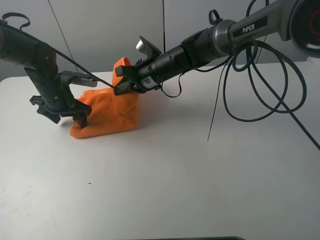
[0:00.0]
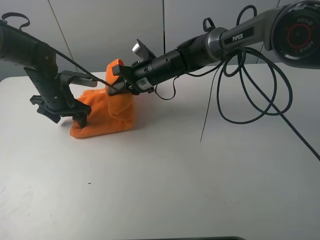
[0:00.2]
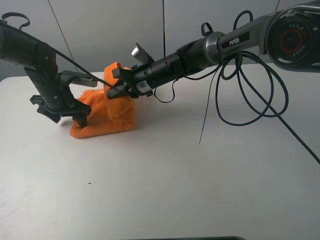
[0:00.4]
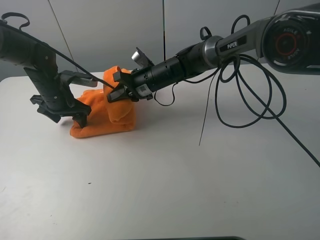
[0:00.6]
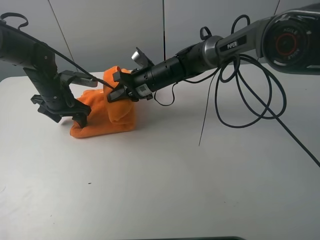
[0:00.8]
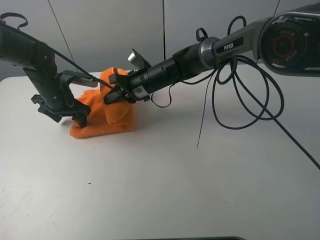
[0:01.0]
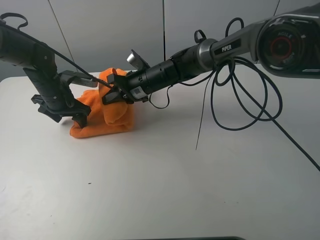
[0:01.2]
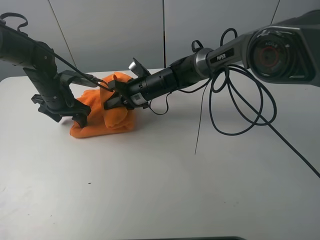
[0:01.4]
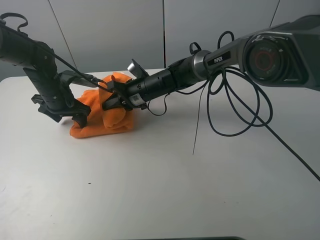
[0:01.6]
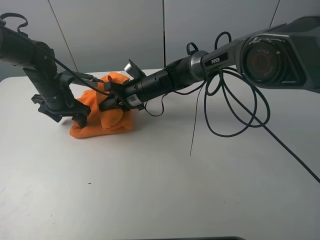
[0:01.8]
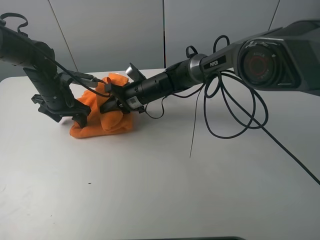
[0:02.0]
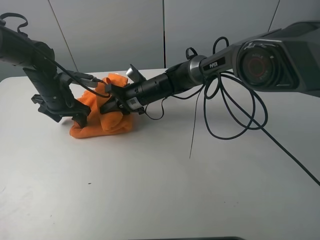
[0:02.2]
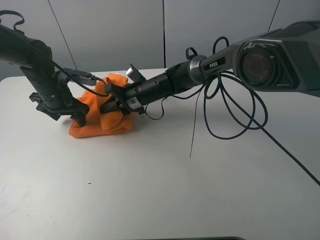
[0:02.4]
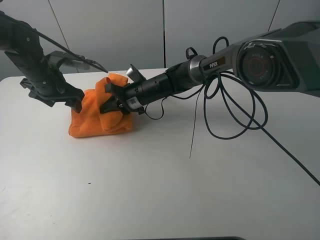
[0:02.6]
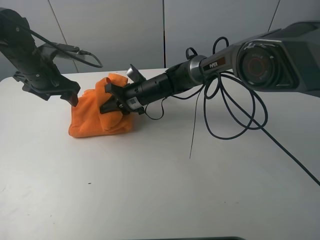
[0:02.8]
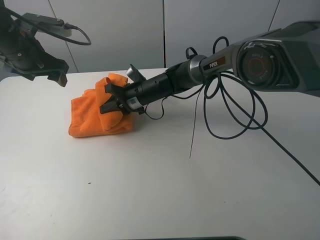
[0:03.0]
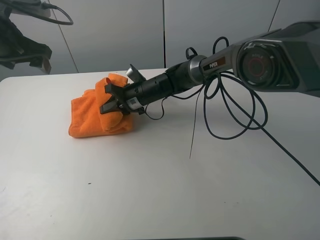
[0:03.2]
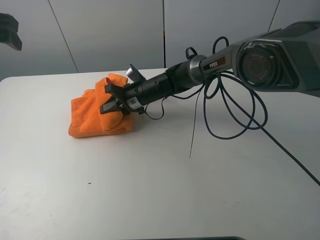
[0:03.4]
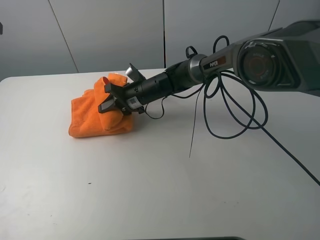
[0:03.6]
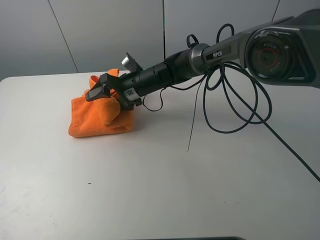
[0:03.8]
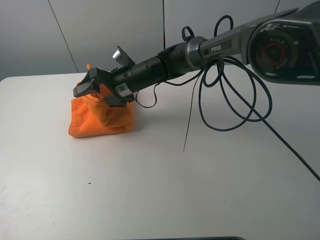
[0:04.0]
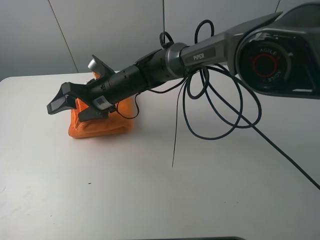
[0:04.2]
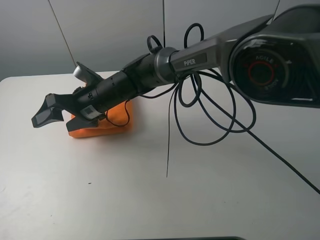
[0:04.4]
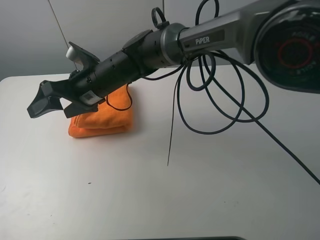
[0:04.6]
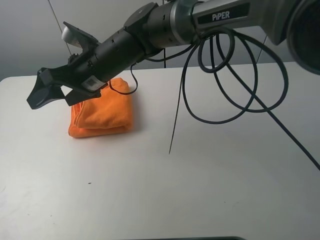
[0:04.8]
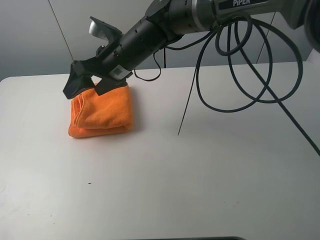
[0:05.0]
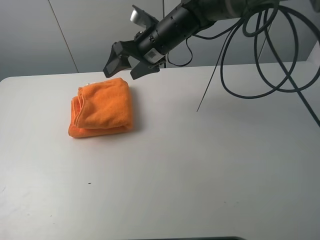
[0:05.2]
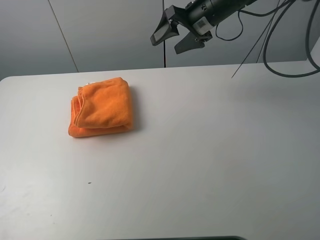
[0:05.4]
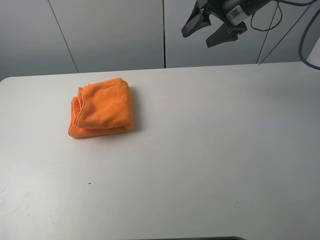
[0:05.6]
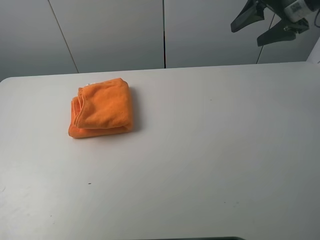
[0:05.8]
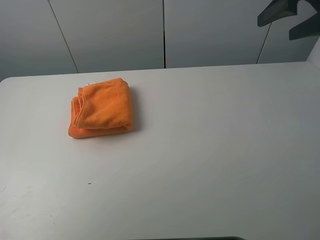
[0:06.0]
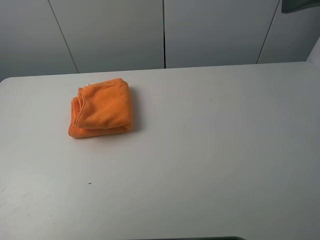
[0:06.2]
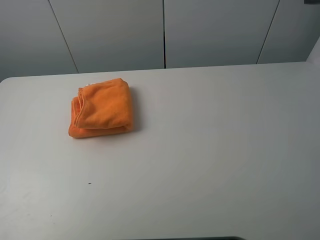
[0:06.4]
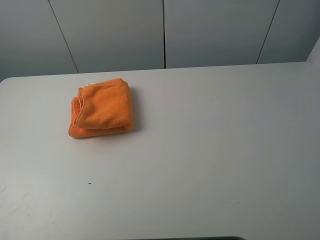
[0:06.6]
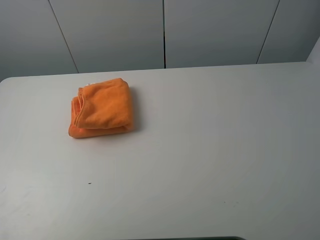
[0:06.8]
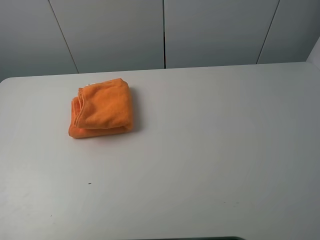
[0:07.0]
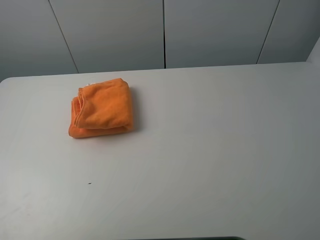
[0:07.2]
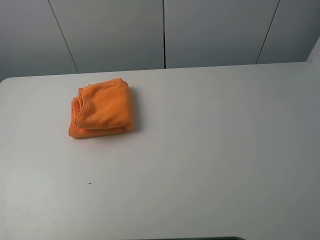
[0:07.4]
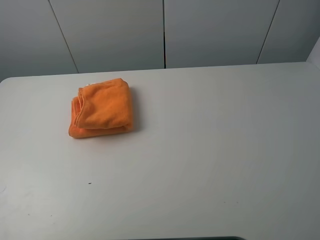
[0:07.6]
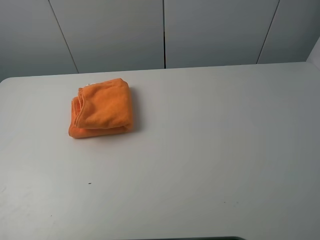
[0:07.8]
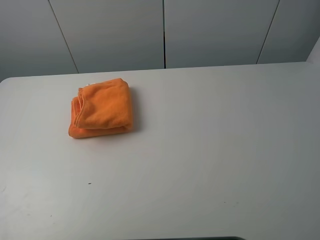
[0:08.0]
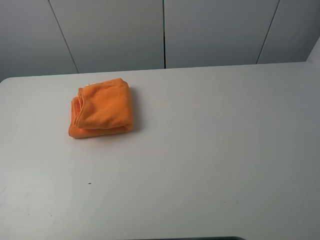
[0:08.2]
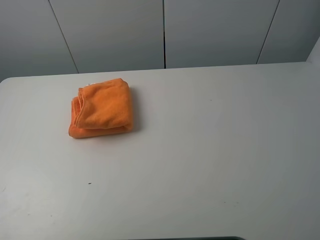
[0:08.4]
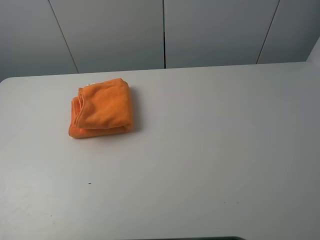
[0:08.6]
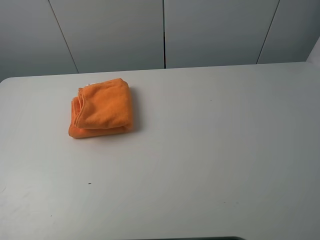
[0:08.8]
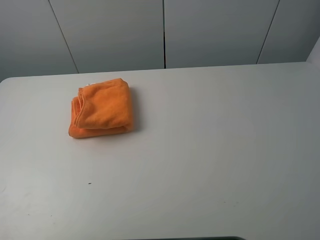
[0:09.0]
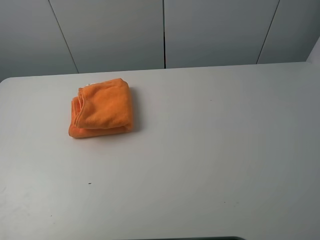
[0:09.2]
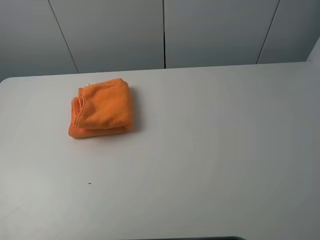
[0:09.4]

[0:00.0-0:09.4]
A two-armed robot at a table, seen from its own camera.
Task of the whole recording: fold the towels on the table.
Step, 0:00.0 to 0:05.2: Fold the orange towel from right to left with right gripper.
0:00.0 to 0:01.6: The right gripper shifts about 5 cm downward.
0:01.6 to 0:03.2: The left gripper heads upward, covering roughly 15 cm.
0:03.2 to 0:04.8: Both grippers travel together upward and backward, about 15 cm. The right gripper opens.
0:04.8 to 0:06.2: The left gripper is displaced backward by approximately 20 cm; the right gripper goes about 40 cm to the right and upward.
0:07.8 to 0:09.4: Both grippers stay put.
